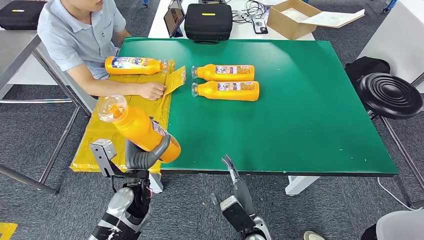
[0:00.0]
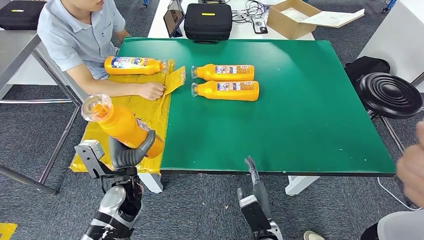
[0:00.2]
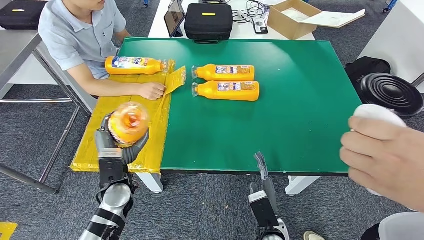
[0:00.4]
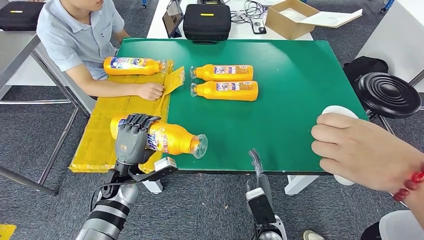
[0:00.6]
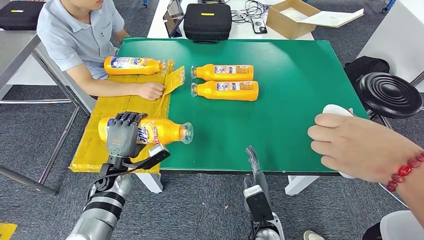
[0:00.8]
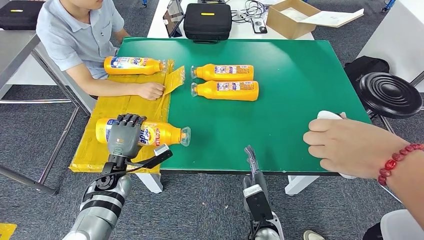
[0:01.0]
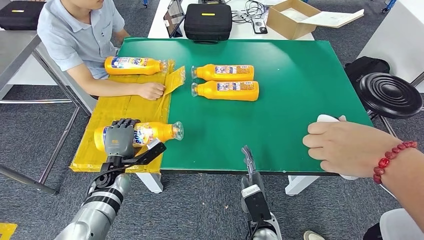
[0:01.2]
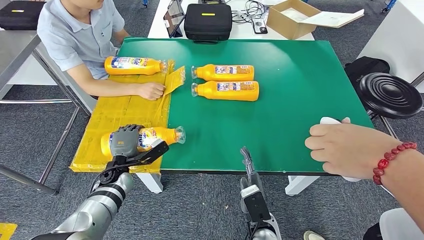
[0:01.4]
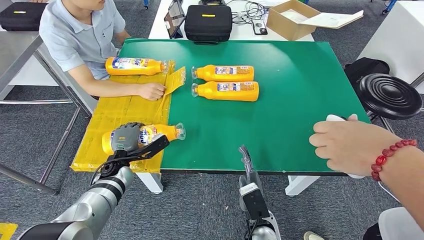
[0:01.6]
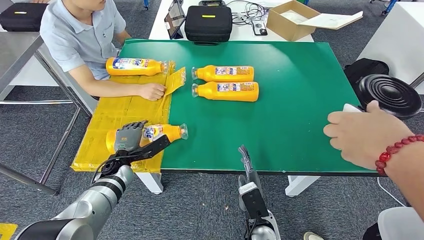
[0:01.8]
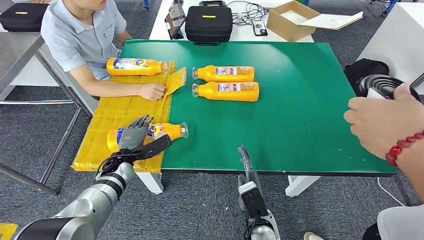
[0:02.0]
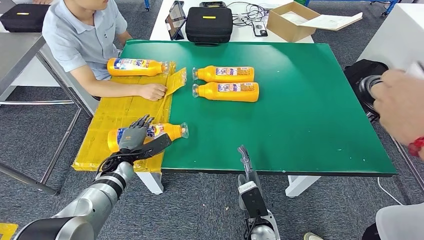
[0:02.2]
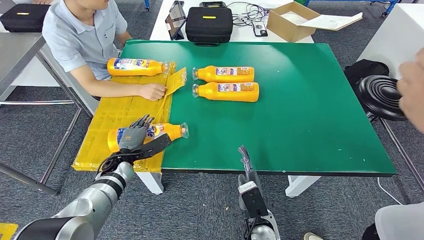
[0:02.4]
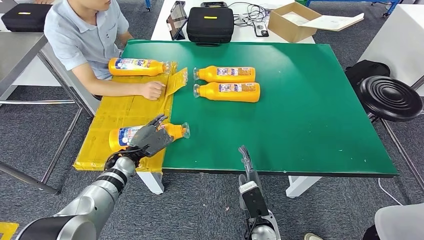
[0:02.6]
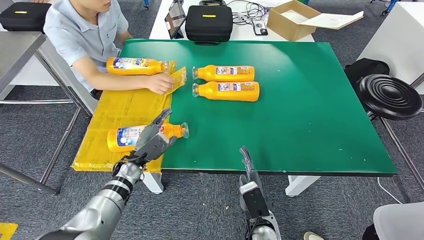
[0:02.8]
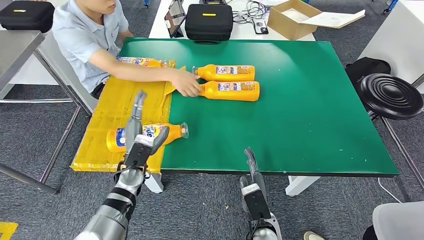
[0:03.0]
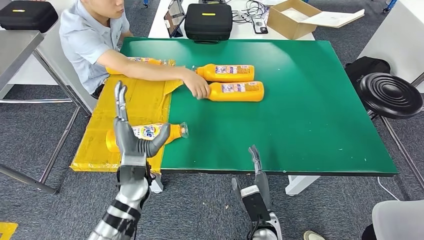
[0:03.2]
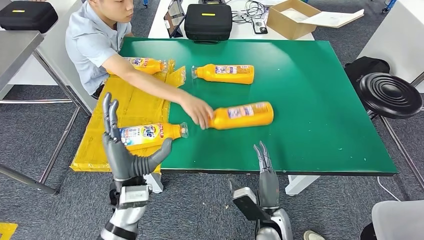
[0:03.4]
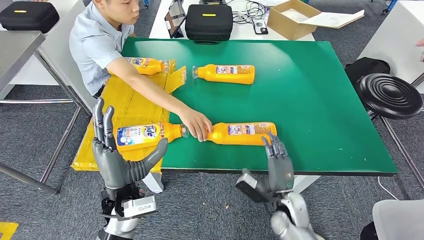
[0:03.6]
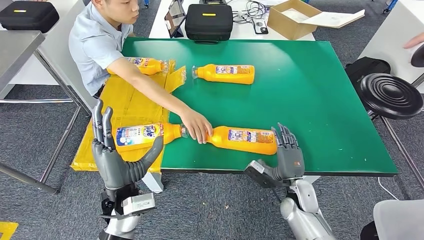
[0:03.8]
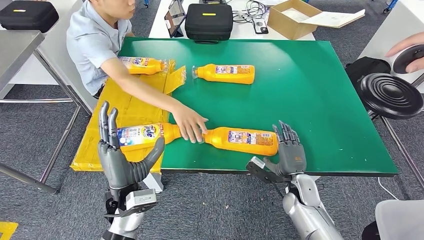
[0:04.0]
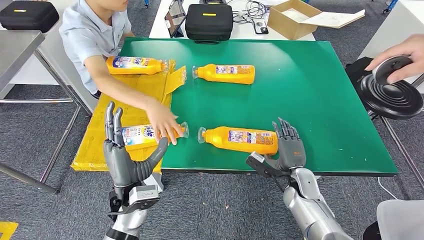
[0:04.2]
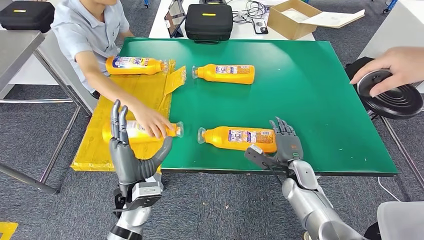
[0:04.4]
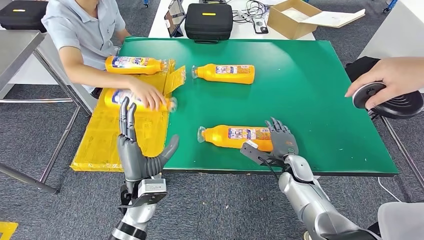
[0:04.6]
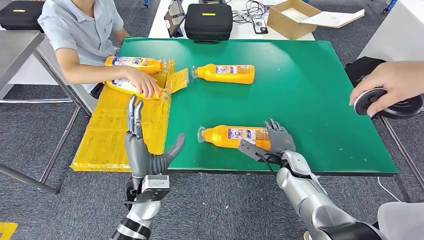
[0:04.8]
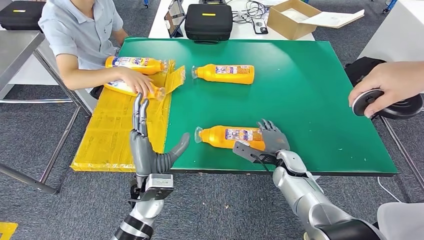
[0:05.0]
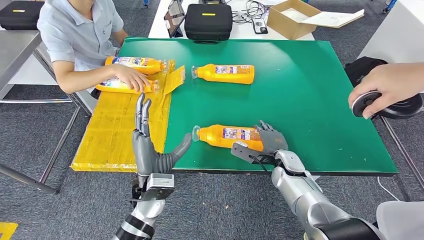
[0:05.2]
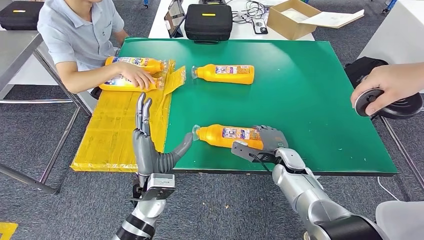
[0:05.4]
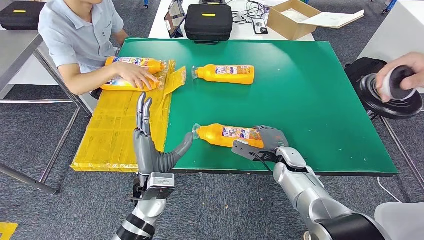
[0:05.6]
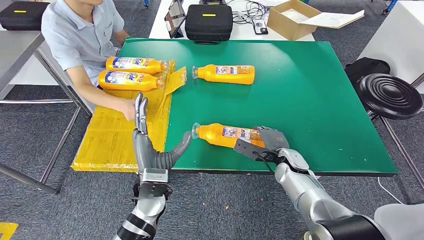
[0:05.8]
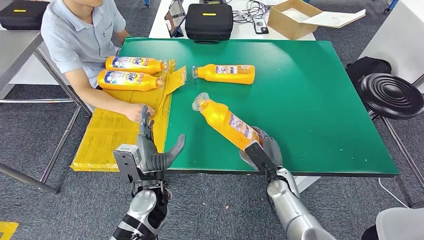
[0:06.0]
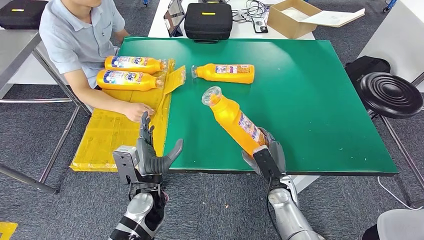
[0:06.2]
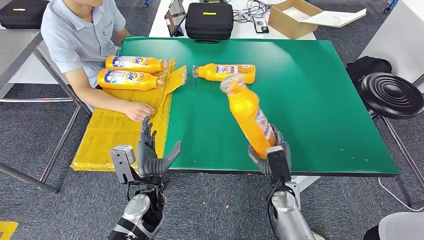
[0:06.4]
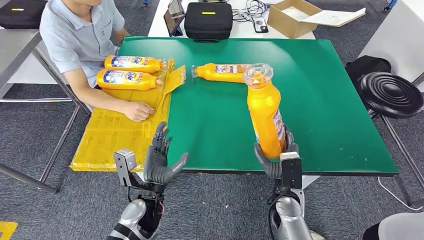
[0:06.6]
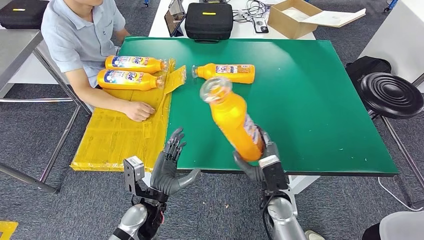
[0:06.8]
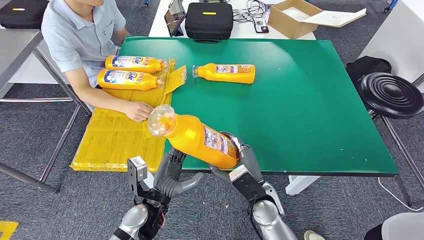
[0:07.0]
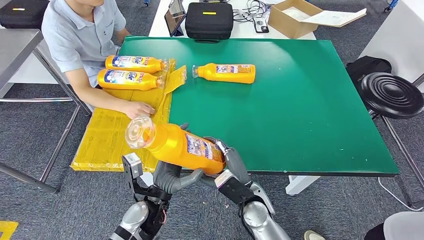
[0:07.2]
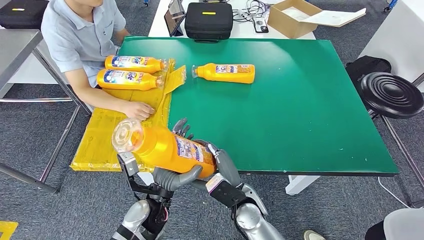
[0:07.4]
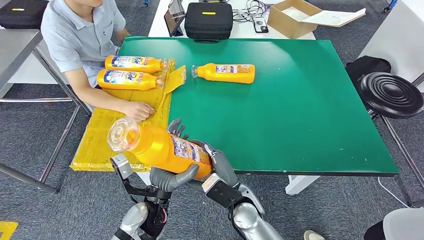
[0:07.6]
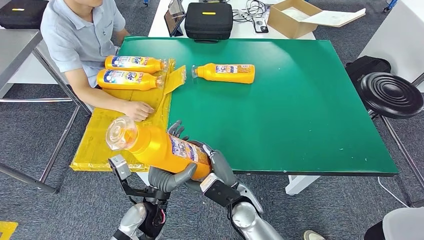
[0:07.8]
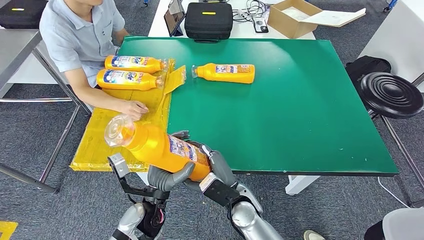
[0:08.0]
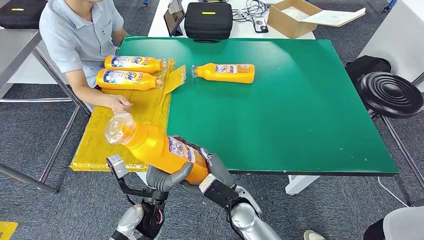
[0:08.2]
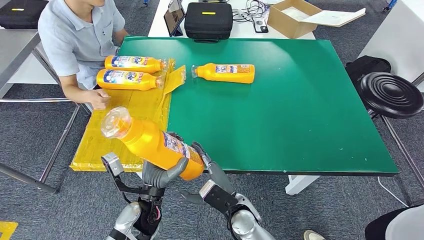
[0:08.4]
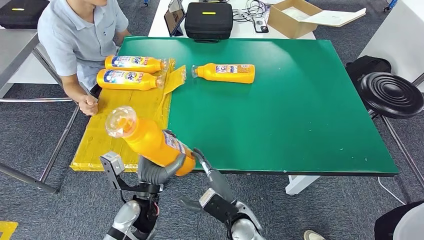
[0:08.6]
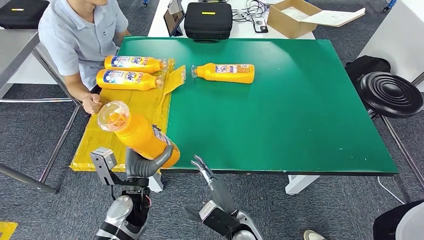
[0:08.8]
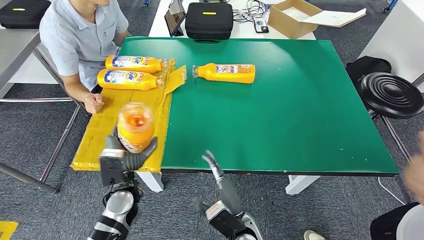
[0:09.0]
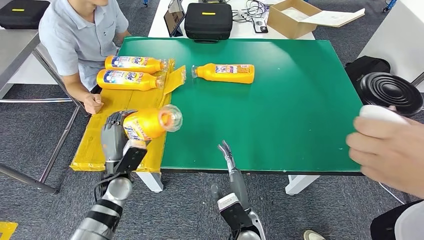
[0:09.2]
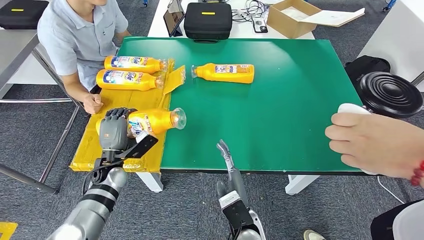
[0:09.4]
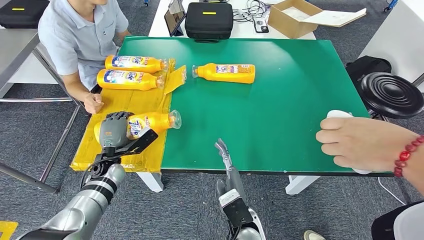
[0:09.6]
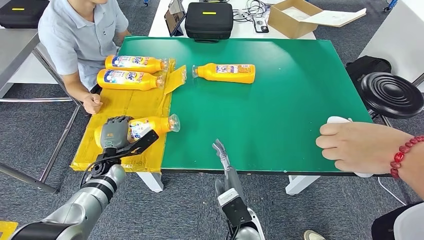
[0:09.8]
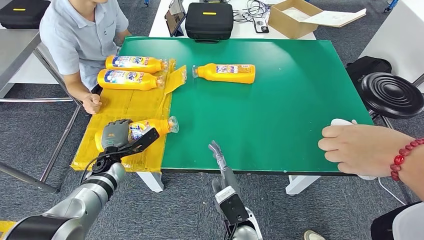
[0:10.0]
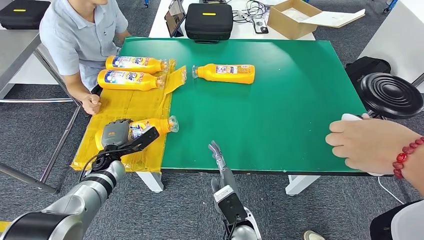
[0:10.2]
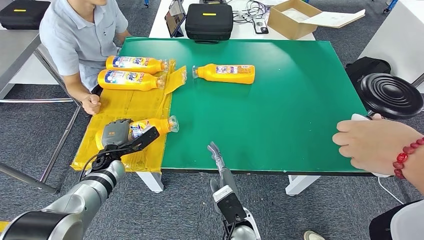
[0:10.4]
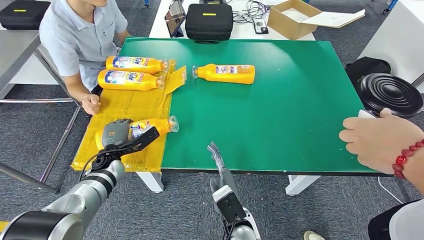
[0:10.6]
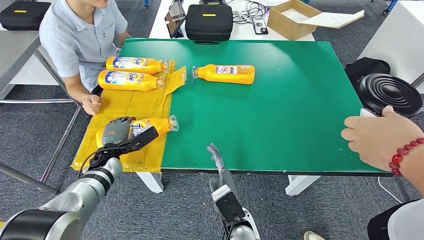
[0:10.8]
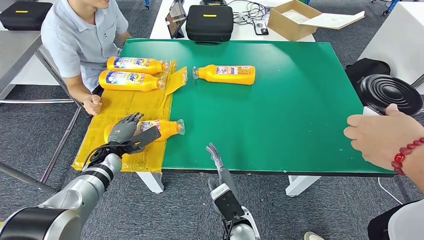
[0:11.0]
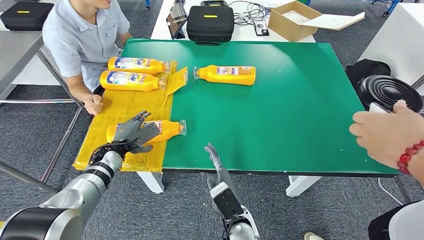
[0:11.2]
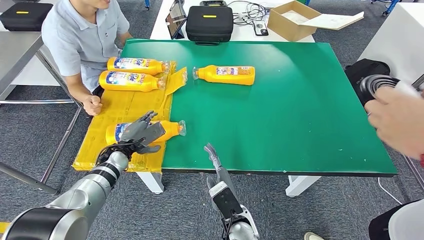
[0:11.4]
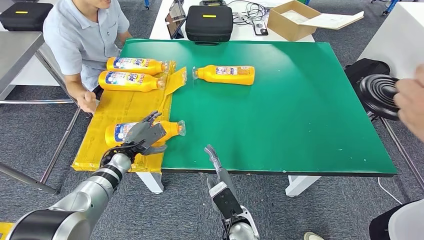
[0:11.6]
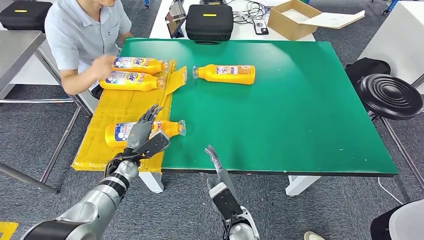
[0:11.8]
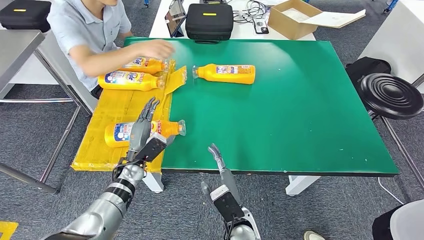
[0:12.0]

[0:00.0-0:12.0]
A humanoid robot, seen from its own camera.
Step, 0:00.0 to 0:02.0: Flip the fast-moving consumer goods bottle to the front side.
Step, 0:02.2 to 0:07.4: Pick up the fast-moving consumer goods bottle from the table.
0:06.0 to 0:07.6: The right hand is displaced to the left and backward by approximately 15 cm.
0:07.6 to 0:09.0: The right hand travels backward by approximately 5 cm. Meanwhile the left hand goes some 10 cm to the left.
0:09.0 to 0:10.4: The left hand heads forward and to the left, covering roughly 15 cm.
0:10.4 to 0:12.0: The left hand shifts approximately 10 cm to the right.

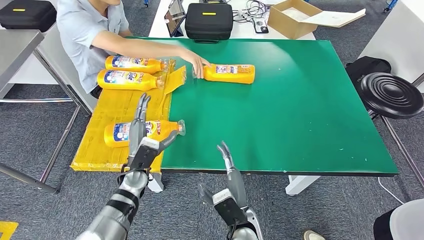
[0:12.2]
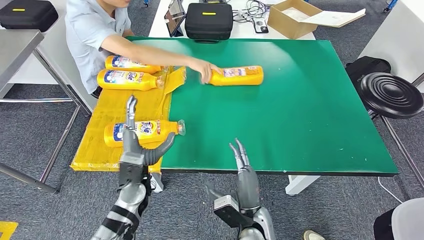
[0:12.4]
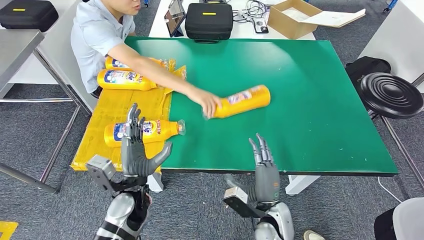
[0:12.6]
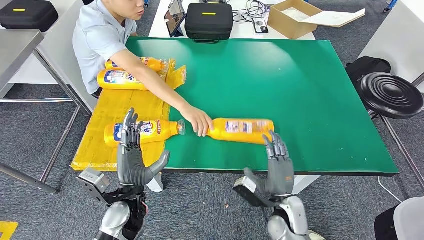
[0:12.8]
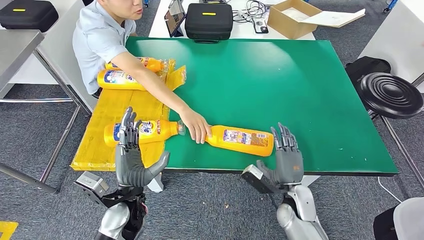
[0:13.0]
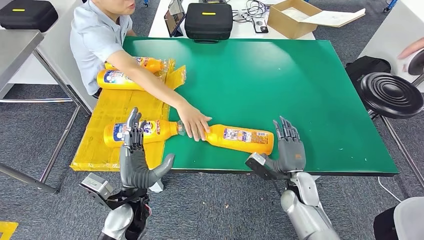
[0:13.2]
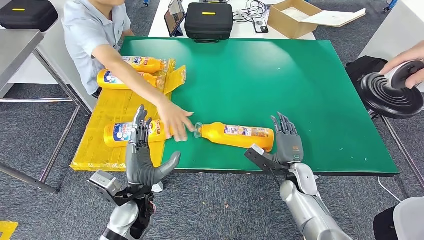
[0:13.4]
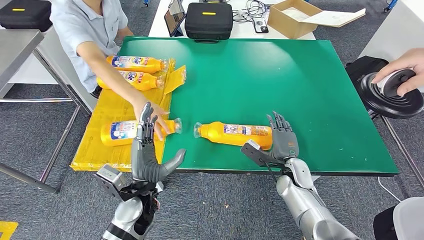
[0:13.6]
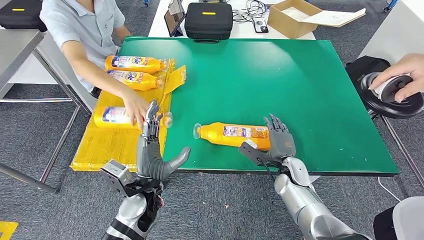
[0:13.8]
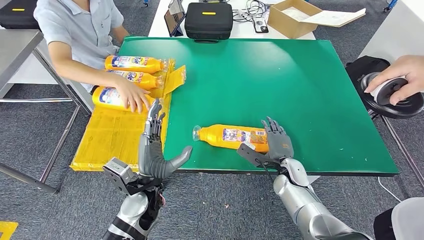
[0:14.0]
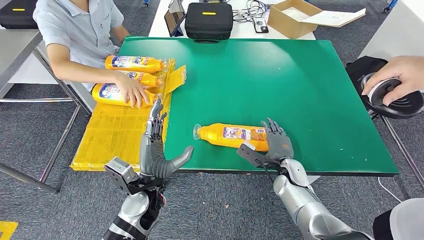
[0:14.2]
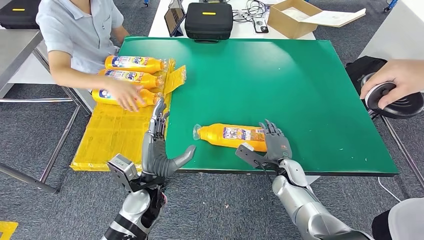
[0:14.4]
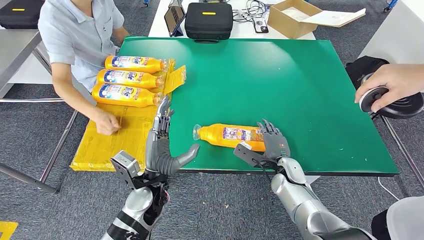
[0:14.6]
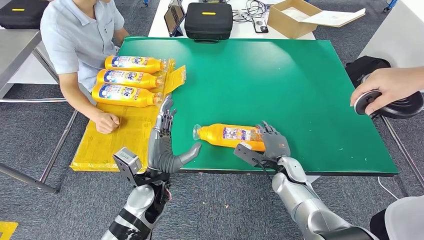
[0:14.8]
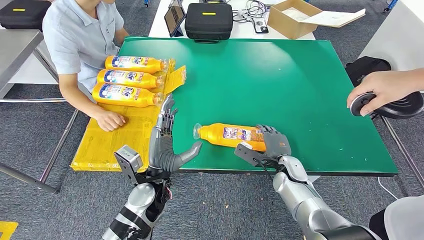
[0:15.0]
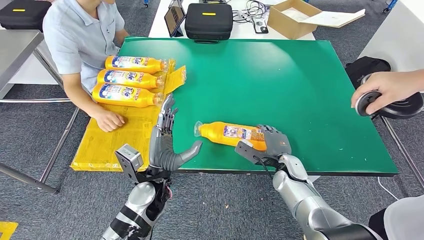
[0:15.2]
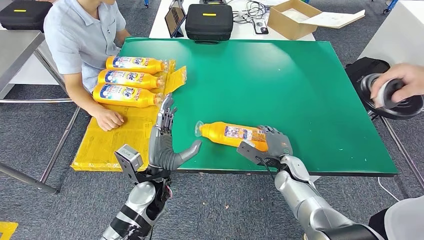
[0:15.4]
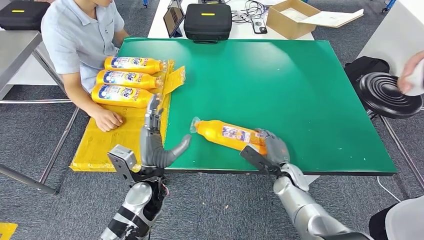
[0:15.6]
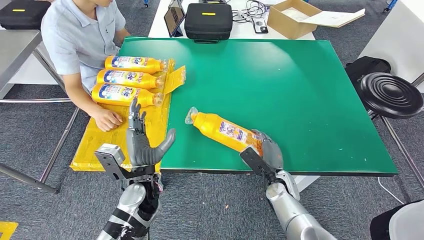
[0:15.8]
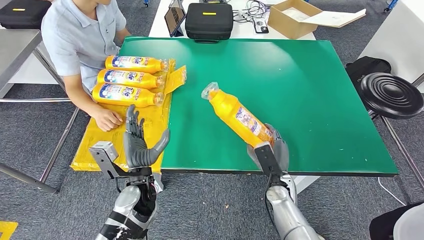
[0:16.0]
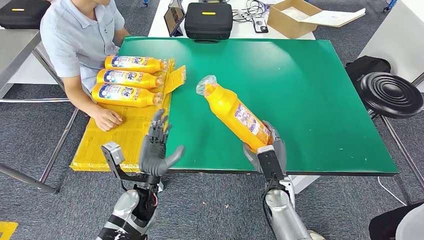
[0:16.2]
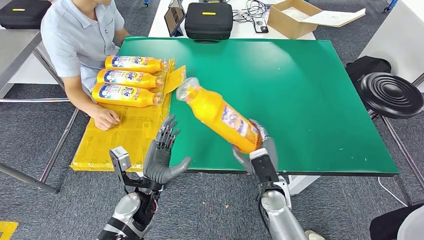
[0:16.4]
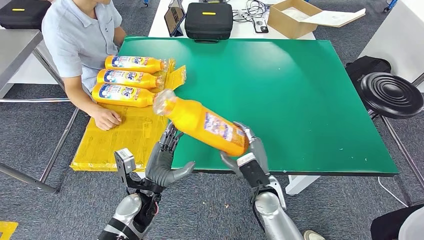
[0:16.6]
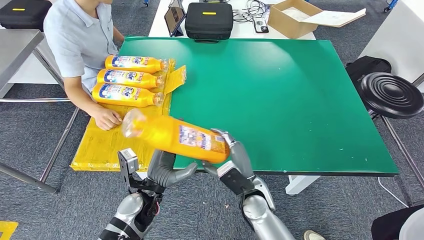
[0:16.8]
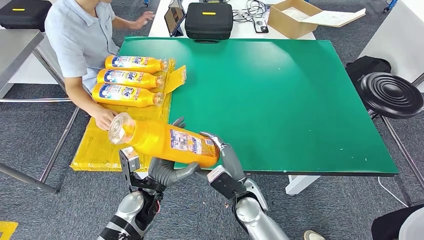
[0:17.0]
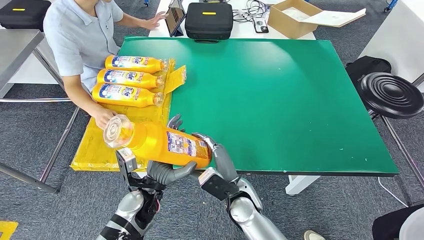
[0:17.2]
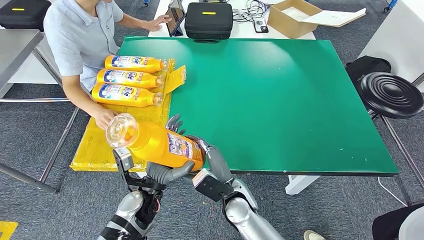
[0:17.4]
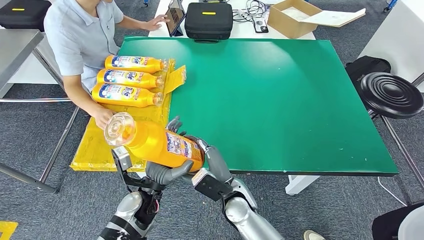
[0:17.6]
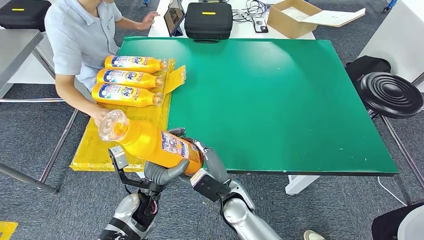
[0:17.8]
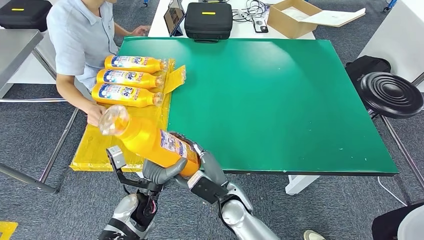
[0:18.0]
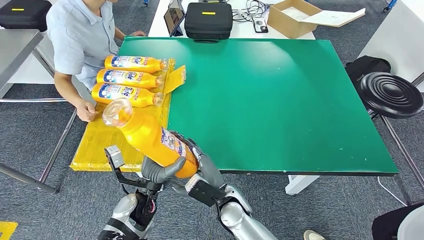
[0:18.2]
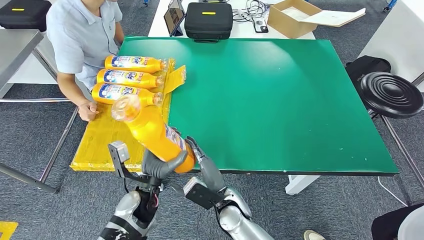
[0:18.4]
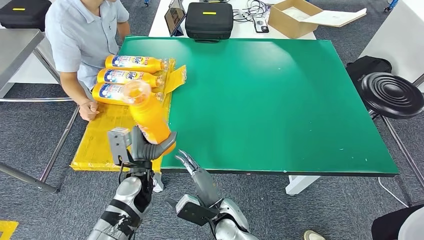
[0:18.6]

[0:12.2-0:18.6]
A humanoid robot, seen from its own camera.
Step, 0:12.4 to 0:17.4: Pick up the fast-moving consumer goods bottle from the table.
0:13.8 to 0:15.4: The hands make only small movements.
0:17.0 to 0:18.6: The right hand moves approximately 10 cm.
